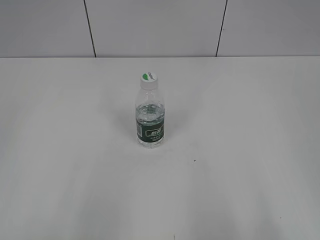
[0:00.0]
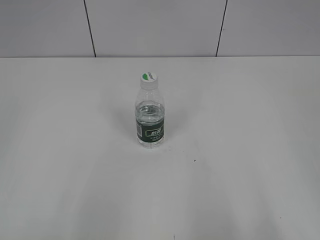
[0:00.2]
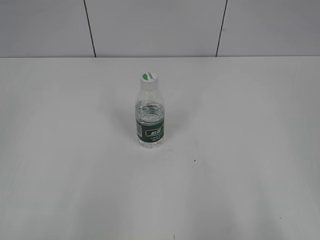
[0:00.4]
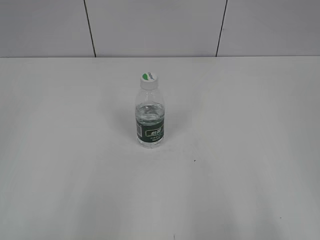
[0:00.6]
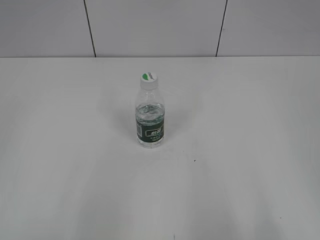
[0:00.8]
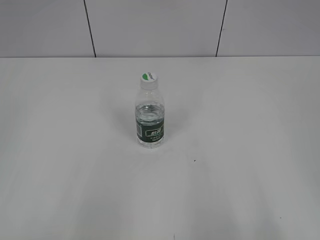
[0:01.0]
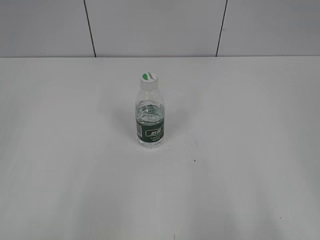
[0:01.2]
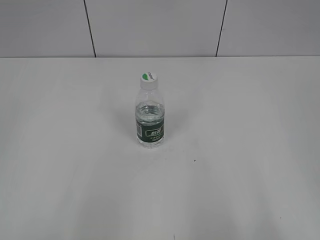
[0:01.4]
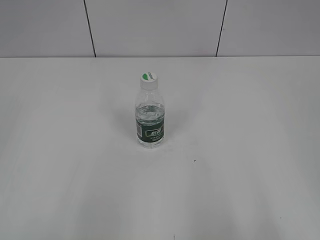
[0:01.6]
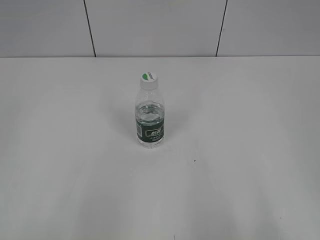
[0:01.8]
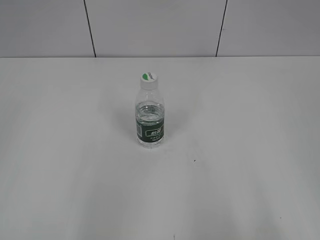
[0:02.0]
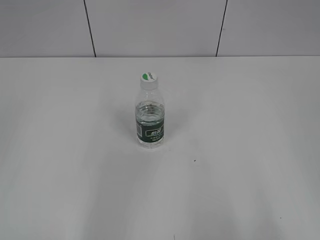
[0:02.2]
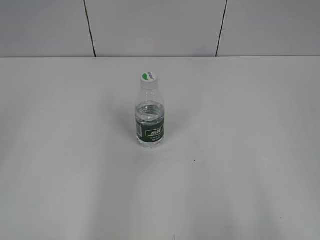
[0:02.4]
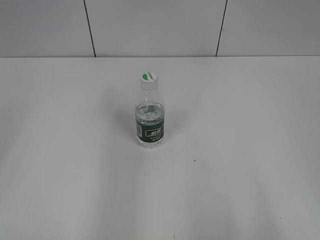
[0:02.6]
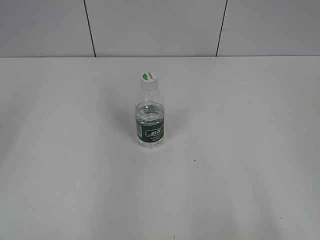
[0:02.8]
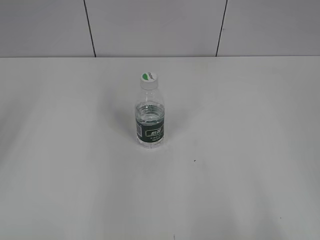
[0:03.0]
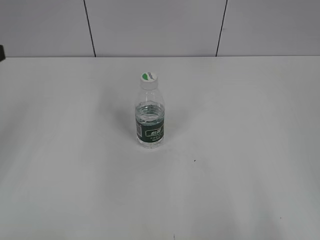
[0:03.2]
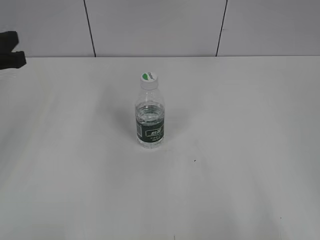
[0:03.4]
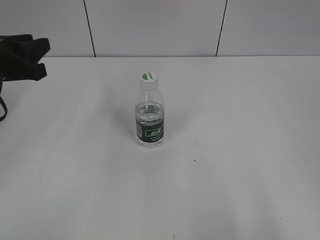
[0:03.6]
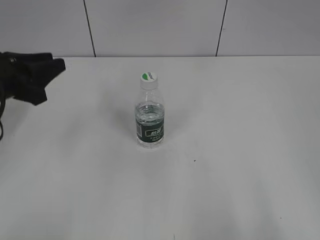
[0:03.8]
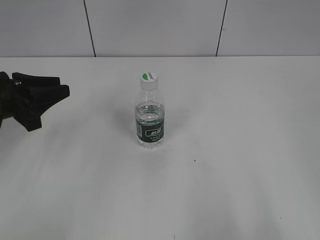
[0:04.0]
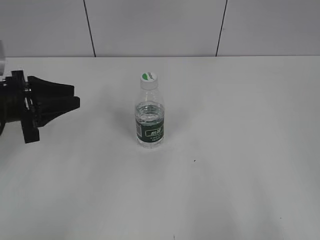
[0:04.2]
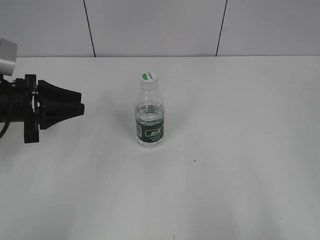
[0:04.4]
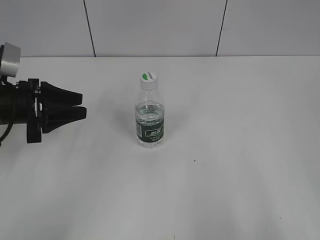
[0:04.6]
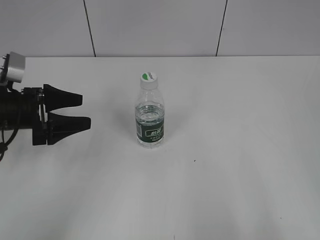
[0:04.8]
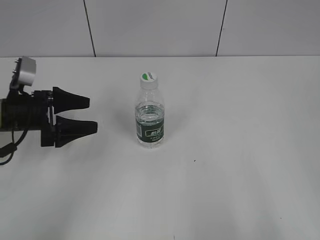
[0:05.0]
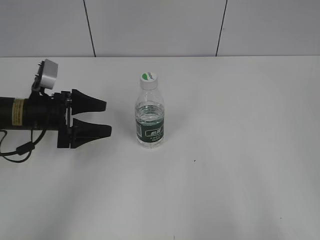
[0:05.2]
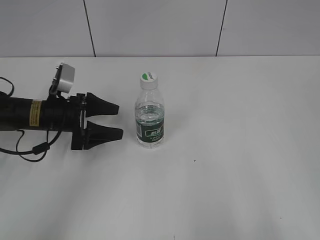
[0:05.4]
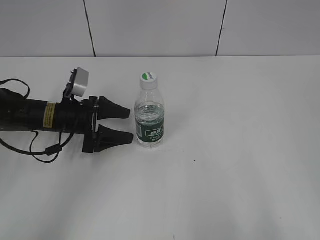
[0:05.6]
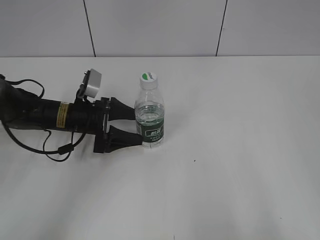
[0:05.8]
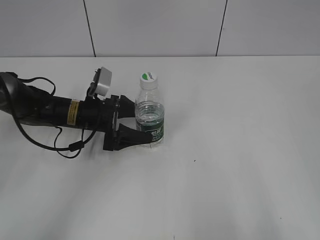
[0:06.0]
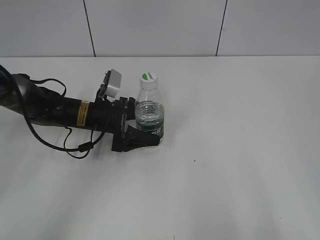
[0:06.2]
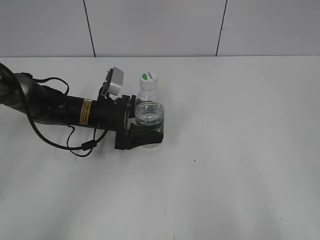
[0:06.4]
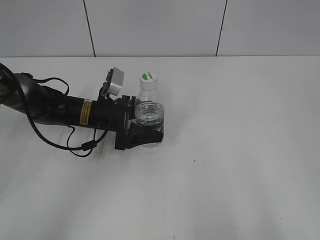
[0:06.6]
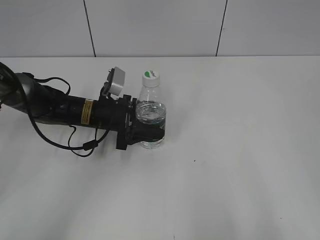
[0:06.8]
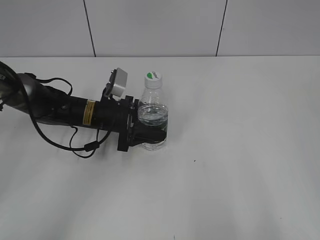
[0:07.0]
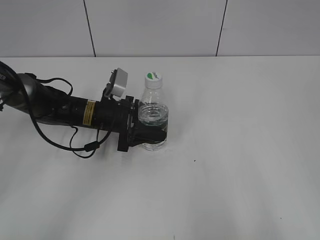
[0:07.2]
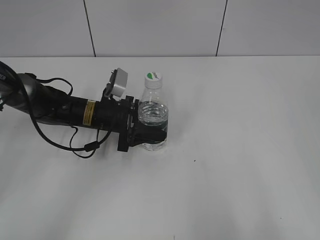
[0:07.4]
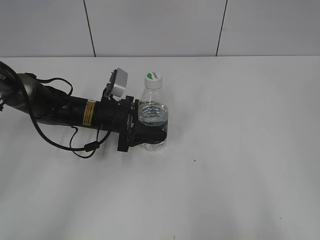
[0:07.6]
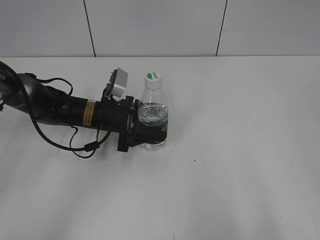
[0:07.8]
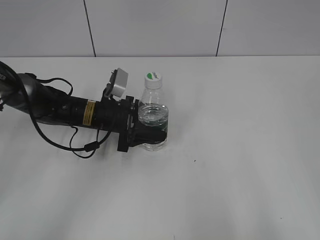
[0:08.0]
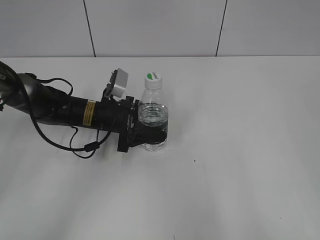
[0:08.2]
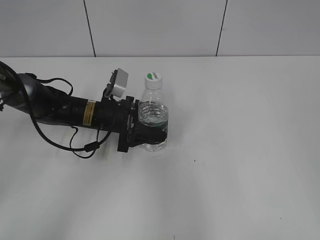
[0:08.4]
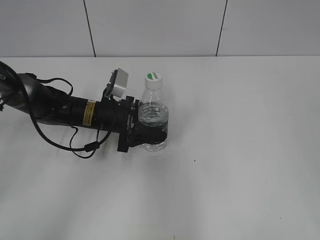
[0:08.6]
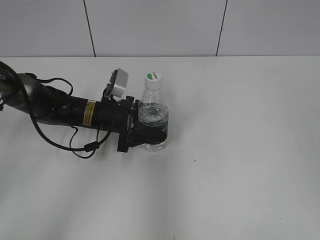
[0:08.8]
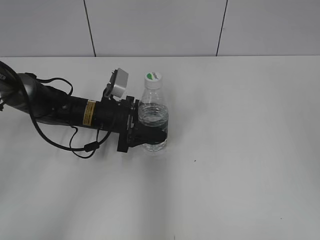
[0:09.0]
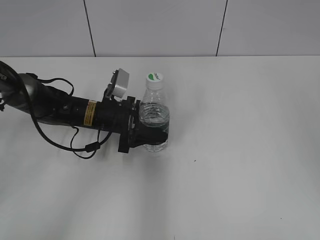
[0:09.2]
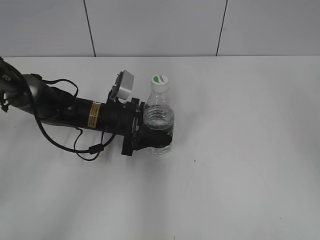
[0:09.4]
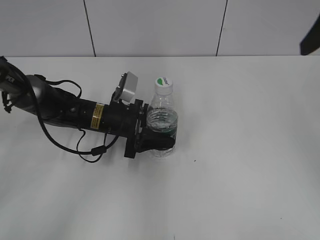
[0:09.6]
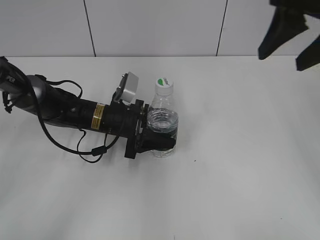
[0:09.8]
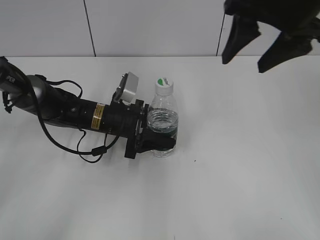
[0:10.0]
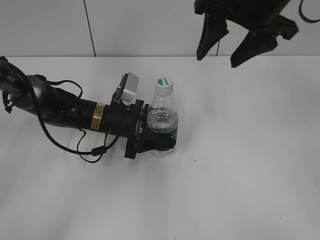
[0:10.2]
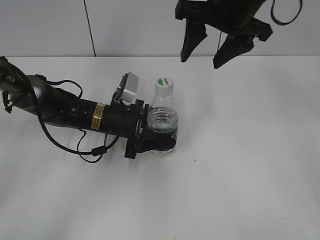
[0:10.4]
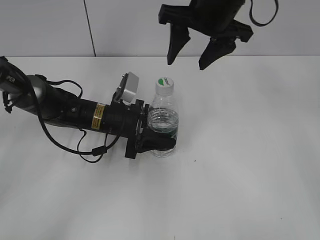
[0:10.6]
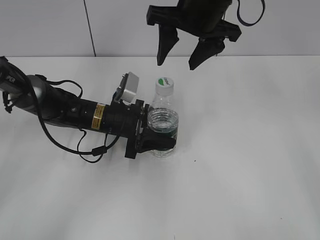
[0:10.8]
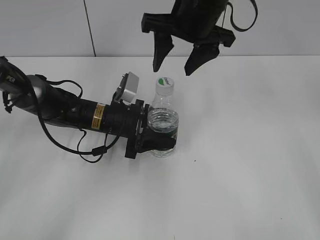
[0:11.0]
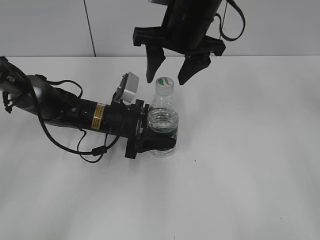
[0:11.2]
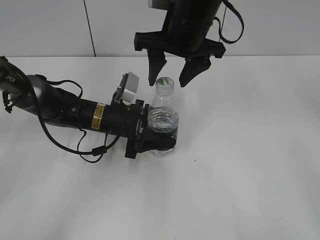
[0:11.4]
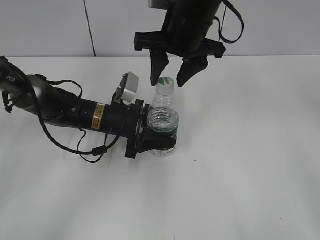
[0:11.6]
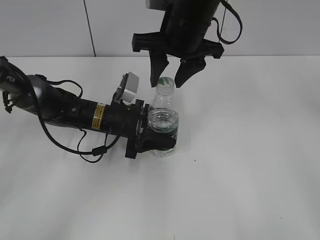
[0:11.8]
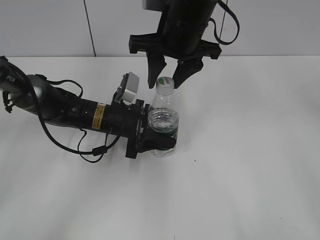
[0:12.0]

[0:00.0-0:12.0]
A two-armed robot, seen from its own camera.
Step, 0:00.0 to 0:06.6: Grasp the bottle and move it to the center of the table with the left gripper.
0:03.0 to 0:04.4: The left gripper travels downward and forward by approximately 15 cm.
0:04.4 to 0:06.0: The left gripper heads to the right, downward and forward, covering approximately 15 cm, and opens its fingers.
0:06.0 to 0:07.6: The left gripper closes up.
0:07.6 to 0:09.0: The right gripper goes about 20 cm forward and upward.
0:09.0 to 0:10.4: The right gripper is displaced forward and to the left by some 25 cm.
0:10.4 to 0:12.0: The right gripper travels to the left by about 5 cm, and closes its fingers.

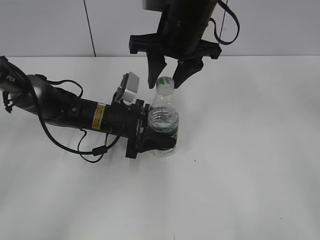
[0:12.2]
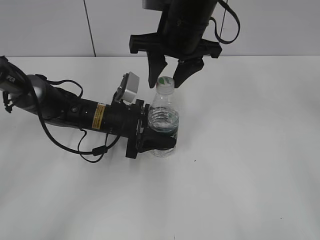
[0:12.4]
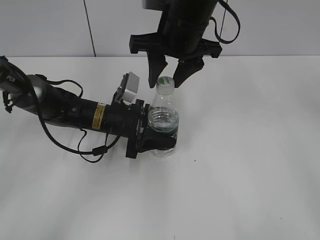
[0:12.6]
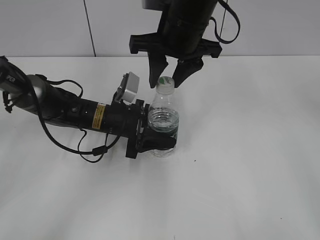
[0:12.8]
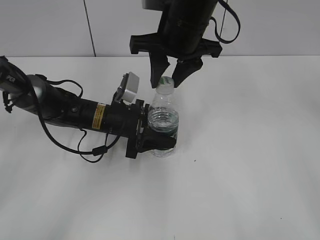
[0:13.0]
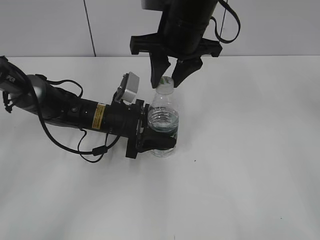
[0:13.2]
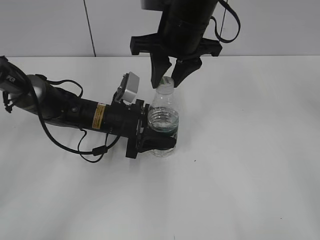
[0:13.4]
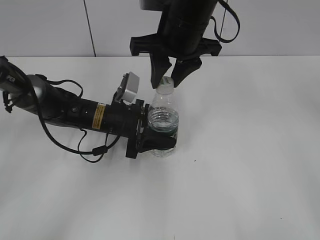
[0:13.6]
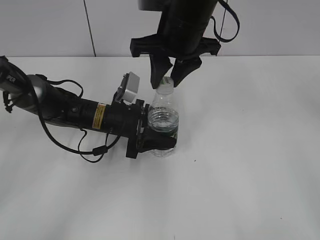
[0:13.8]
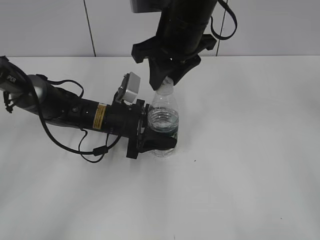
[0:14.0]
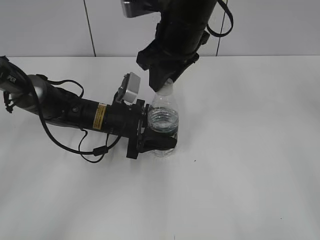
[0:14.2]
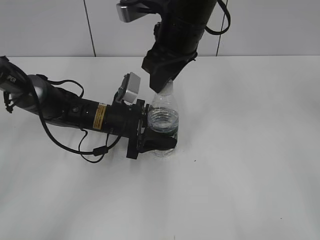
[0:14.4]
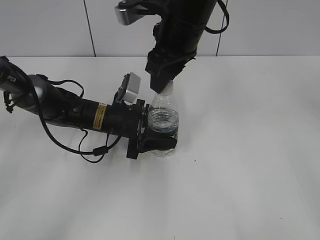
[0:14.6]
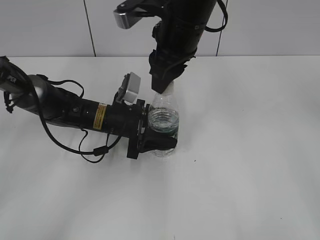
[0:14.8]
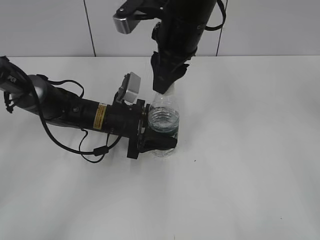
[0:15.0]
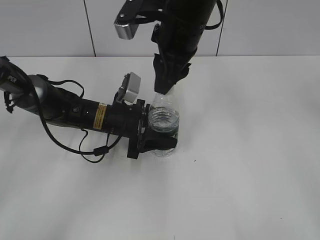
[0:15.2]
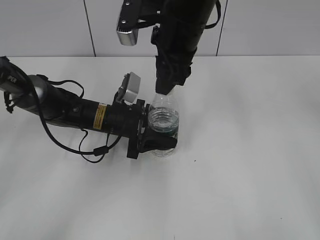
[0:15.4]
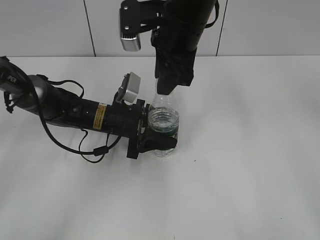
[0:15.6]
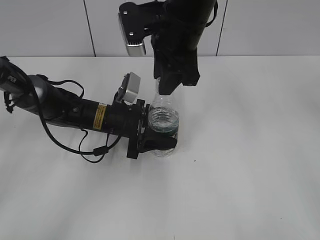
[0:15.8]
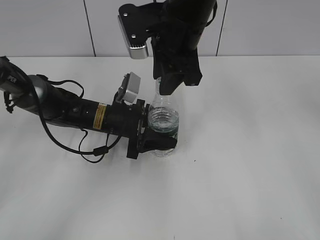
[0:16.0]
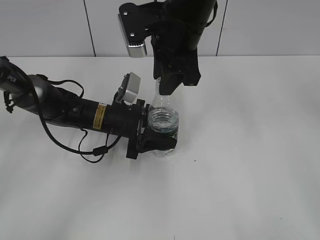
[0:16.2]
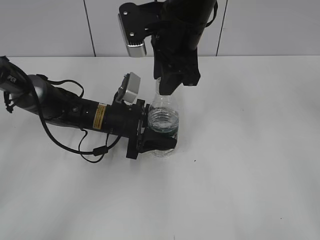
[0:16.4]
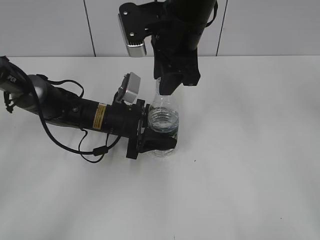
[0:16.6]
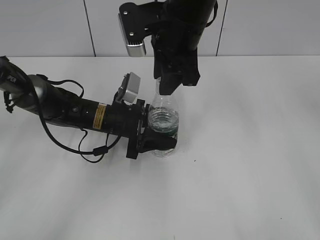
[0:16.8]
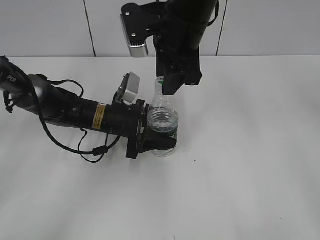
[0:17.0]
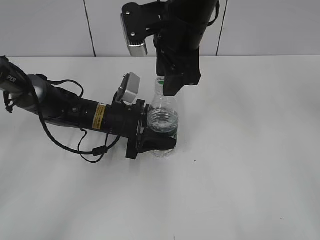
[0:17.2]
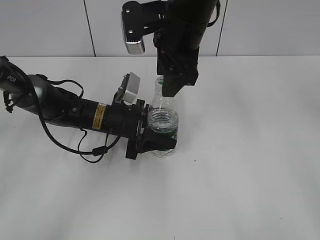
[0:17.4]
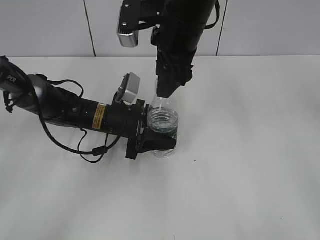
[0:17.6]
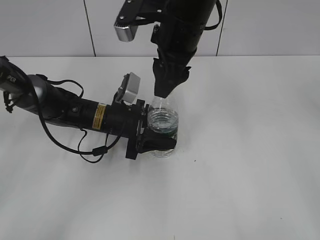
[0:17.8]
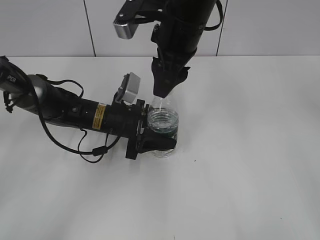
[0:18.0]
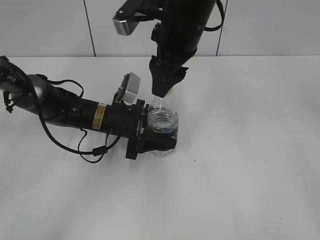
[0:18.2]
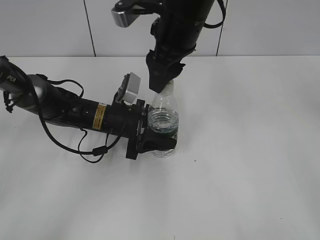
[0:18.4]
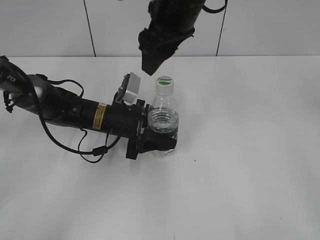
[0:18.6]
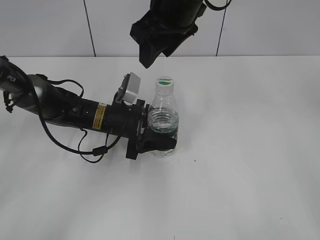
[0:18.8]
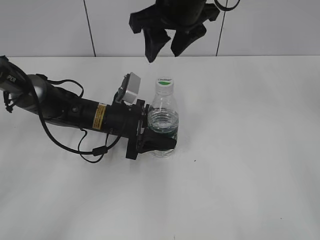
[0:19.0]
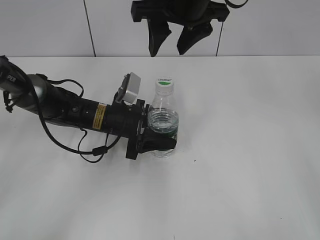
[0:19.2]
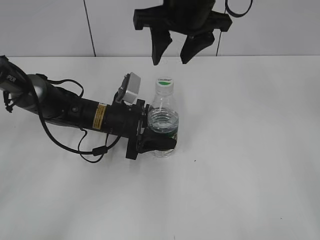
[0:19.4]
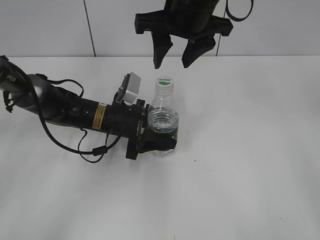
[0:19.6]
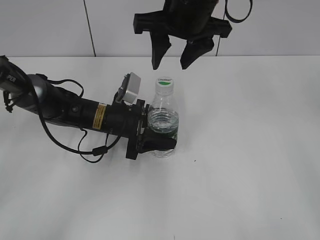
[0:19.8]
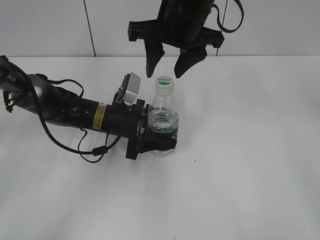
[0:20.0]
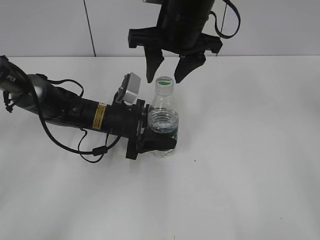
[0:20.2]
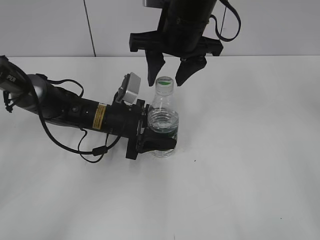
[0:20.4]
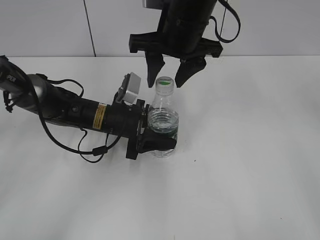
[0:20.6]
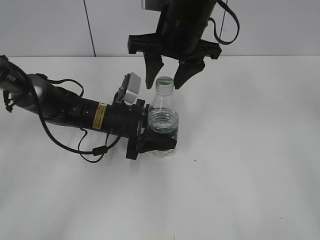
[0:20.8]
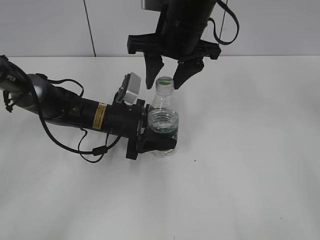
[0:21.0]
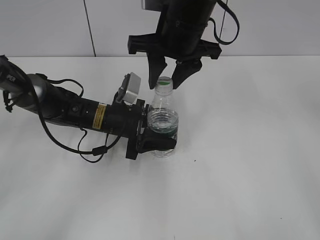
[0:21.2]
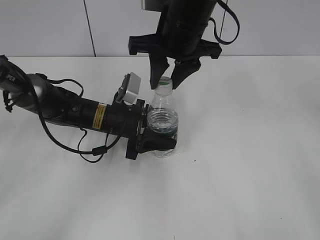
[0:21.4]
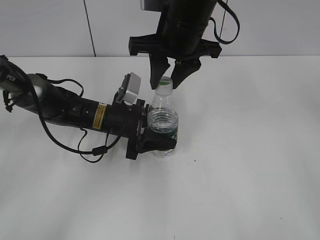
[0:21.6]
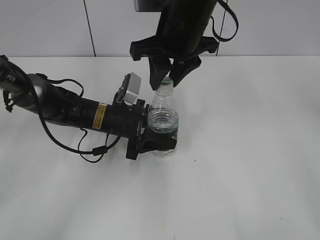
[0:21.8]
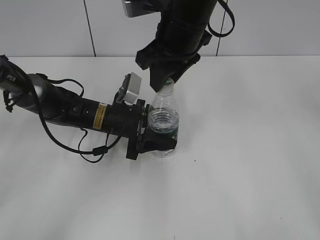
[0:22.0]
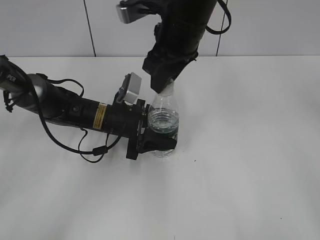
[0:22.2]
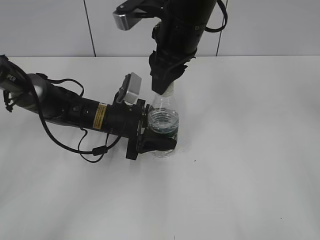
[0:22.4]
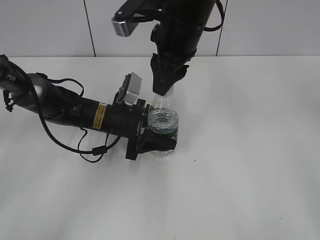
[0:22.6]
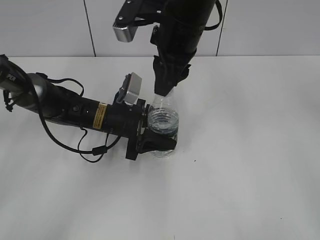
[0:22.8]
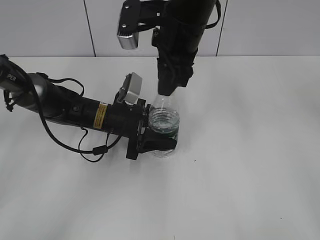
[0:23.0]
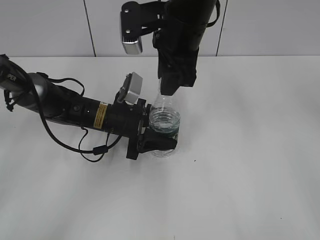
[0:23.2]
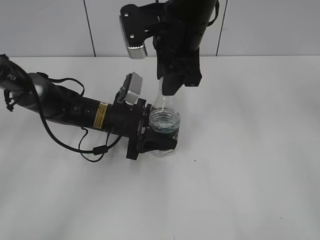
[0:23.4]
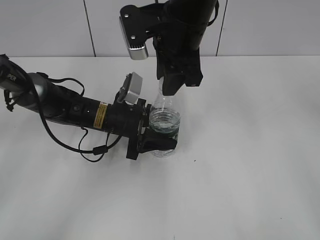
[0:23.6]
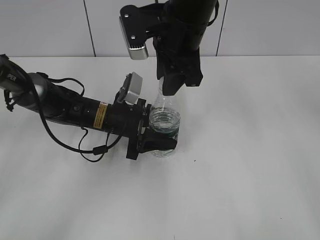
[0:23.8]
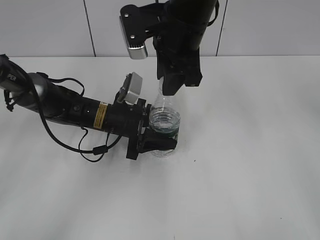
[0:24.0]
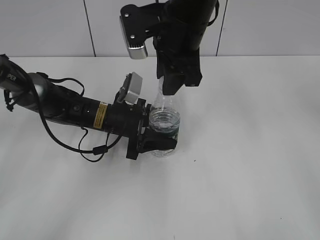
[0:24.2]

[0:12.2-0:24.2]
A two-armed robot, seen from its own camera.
0:12.2 to 0:13.8: The right gripper closes up.
0:16.6 to 0:18.2: The right gripper opens.
0:19.8 to 0:21.2: The grippers make only small movements.
